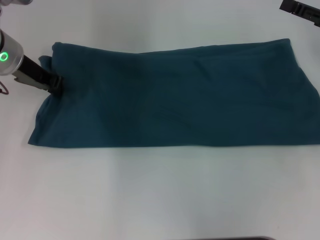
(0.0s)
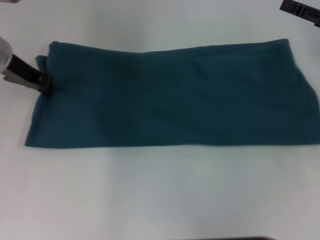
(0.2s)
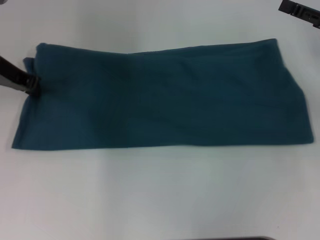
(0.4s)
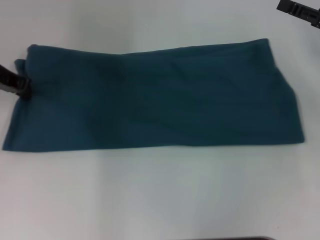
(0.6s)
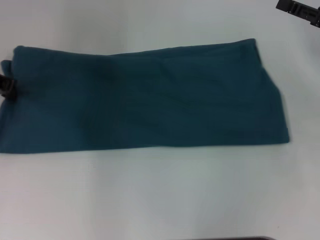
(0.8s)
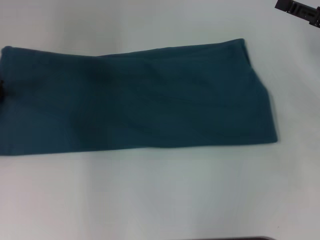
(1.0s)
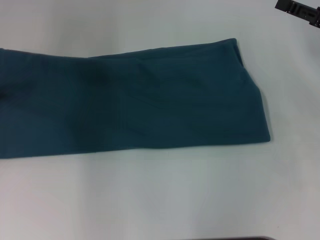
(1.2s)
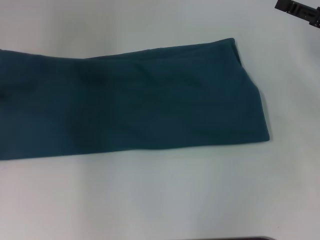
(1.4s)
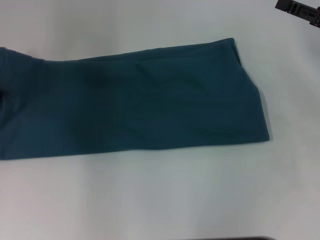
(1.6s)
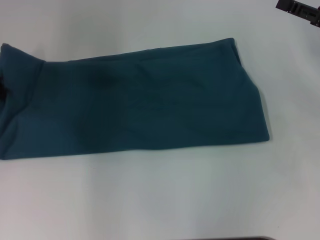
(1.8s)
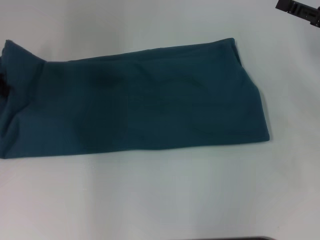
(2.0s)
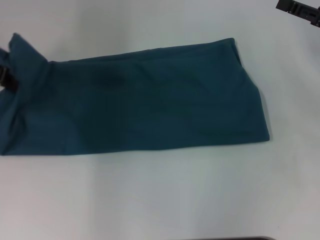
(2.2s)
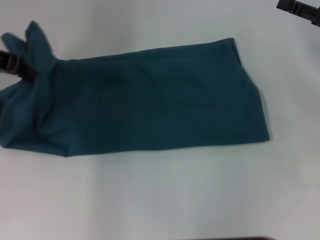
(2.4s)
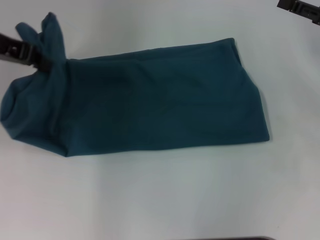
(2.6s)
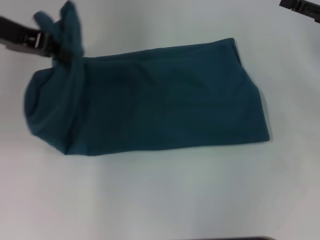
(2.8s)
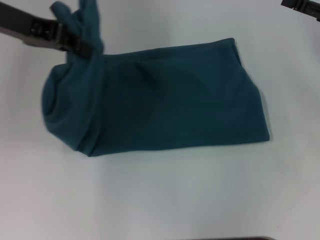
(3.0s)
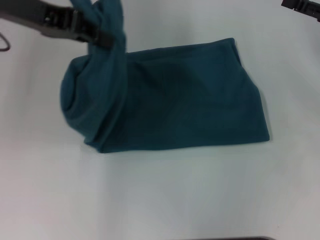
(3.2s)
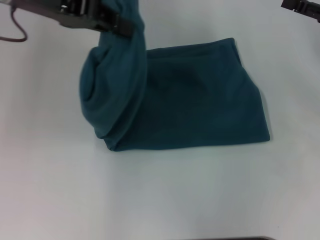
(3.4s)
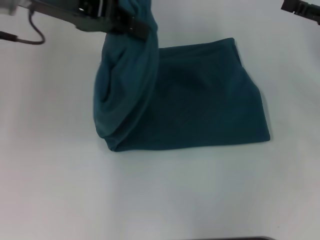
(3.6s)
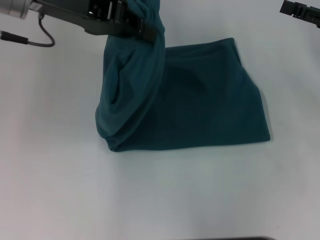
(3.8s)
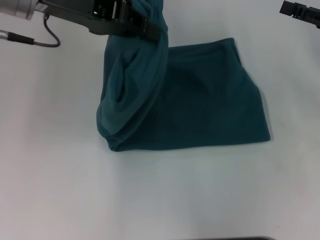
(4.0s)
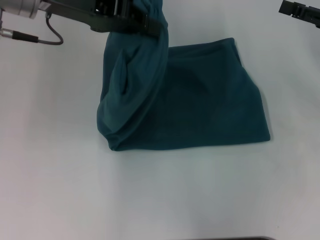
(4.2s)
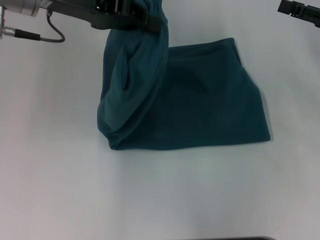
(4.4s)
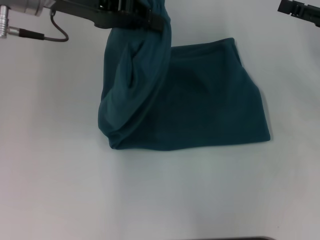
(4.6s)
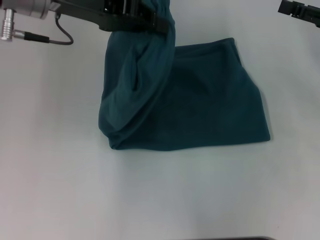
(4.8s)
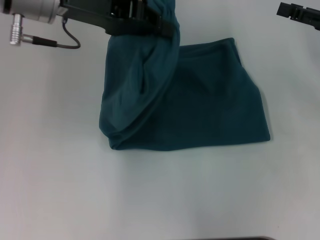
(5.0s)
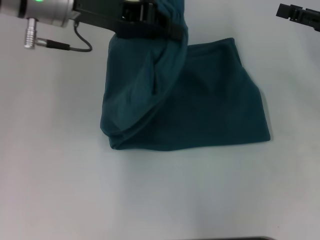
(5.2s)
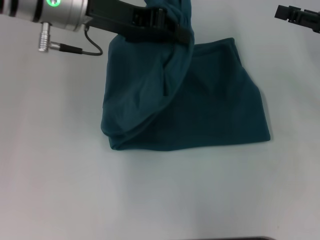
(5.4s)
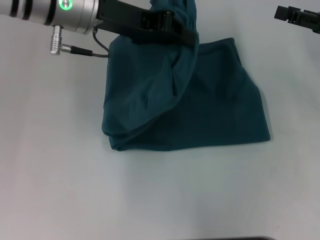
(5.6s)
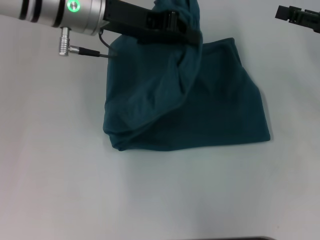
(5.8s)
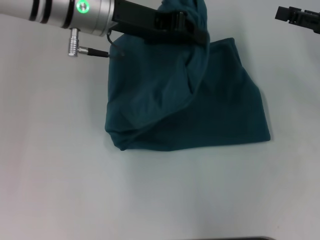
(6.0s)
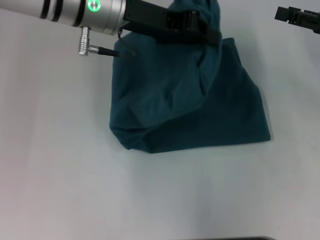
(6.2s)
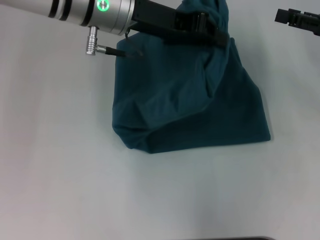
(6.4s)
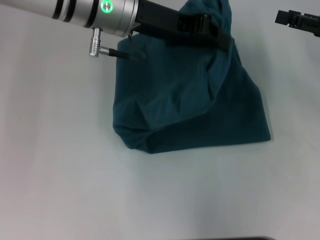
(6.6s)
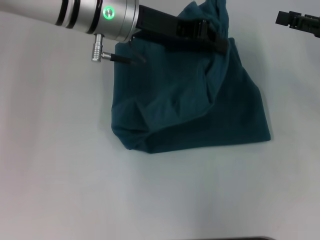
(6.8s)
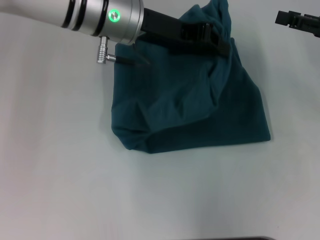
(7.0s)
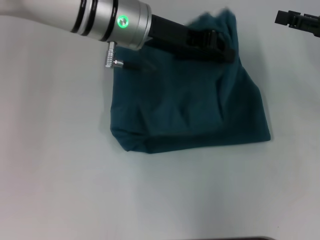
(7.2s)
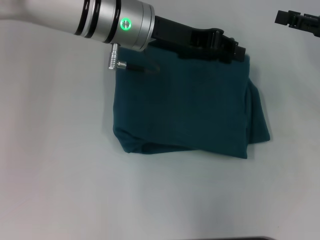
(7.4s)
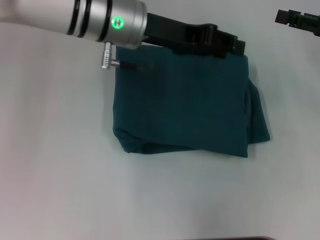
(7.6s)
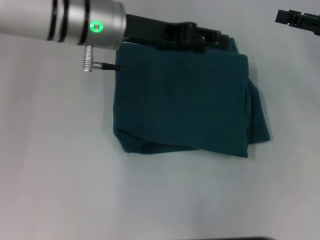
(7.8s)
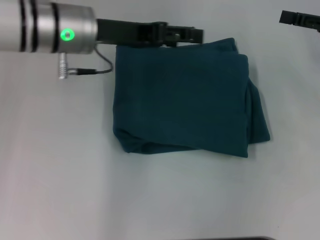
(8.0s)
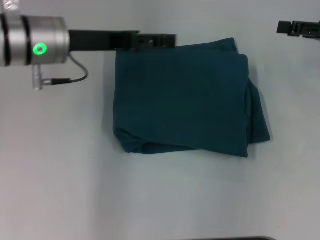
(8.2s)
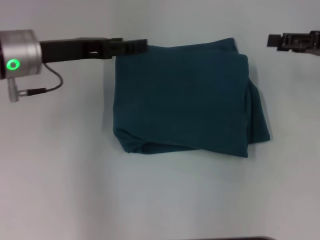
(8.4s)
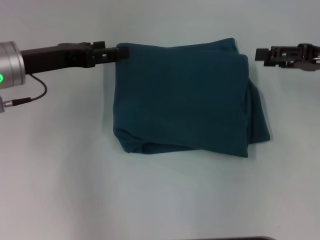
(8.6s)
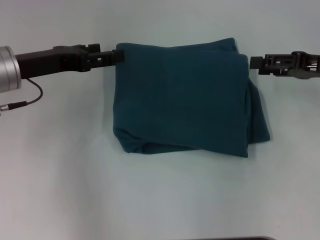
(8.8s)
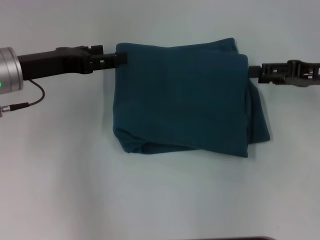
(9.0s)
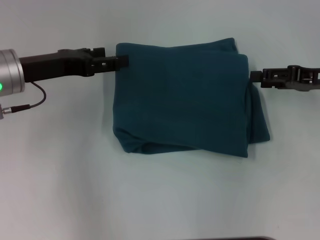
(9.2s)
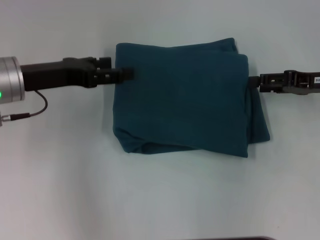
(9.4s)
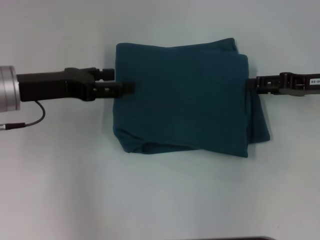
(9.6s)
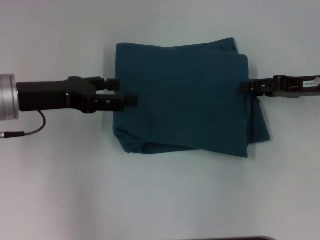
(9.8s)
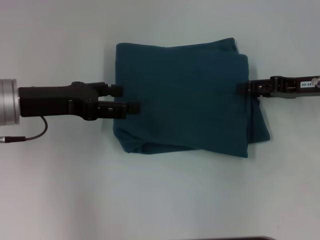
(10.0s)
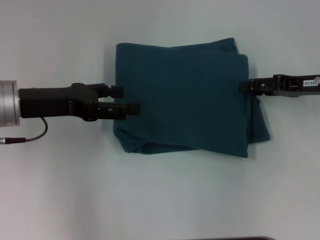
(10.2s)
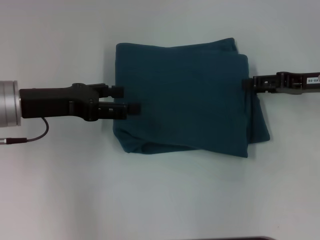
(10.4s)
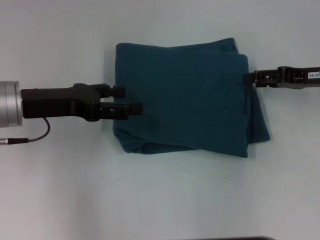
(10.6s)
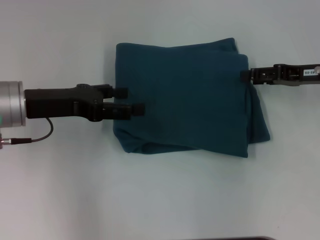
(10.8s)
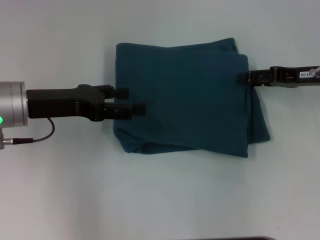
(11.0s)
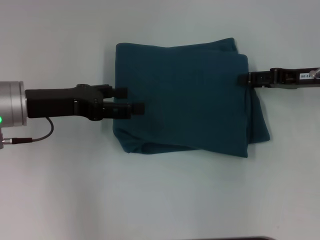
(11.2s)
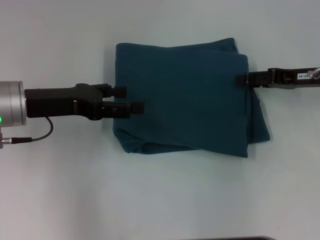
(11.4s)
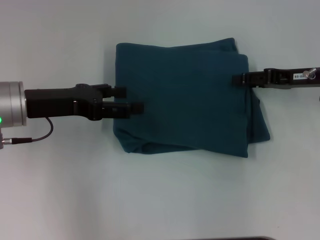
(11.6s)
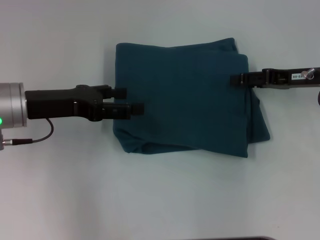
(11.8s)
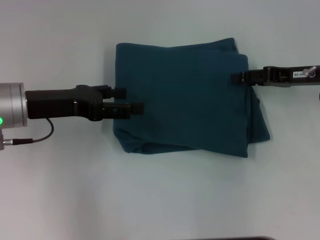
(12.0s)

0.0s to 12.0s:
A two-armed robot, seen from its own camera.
Step, 0.0s to 8.2s: Fold the clothes to the left.
0.0s to 1.6s: The left gripper is displaced to the left by approximately 10 cm.
1.6s to 3.0s: The left gripper heads upward and to the right, covering roughly 10 cm.
3.0s to 4.4s: The left gripper heads to the right, covering roughly 5 cm.
4.4s to 6.0s: The left gripper moves to the right, approximately 5 cm.
6.0s to 7.6s: The grippers make only small movements.
7.6s to 9.0s: The left gripper shifts some 15 cm to the left, and opens up.
9.0s to 12.0s: The grippers make only small movements.

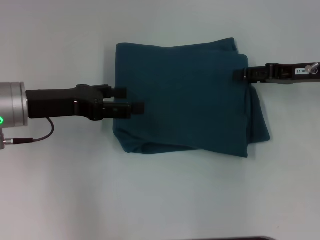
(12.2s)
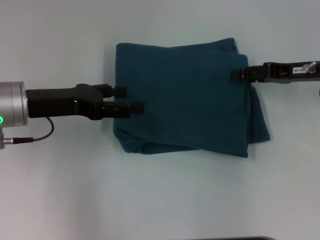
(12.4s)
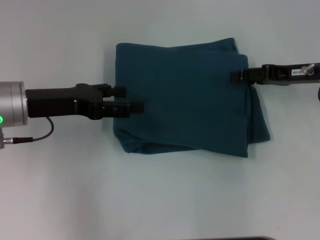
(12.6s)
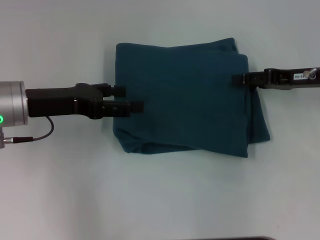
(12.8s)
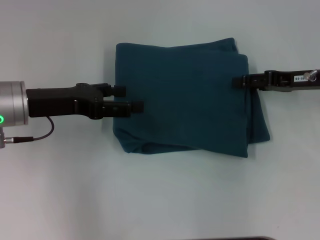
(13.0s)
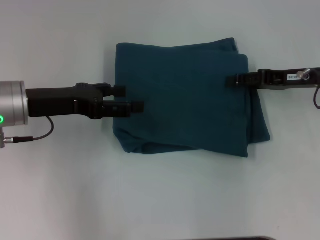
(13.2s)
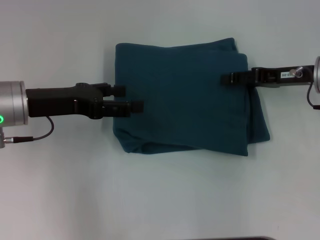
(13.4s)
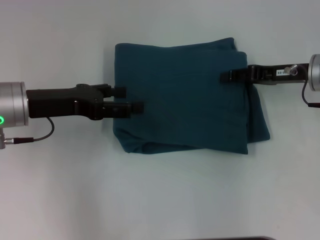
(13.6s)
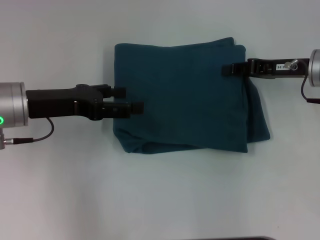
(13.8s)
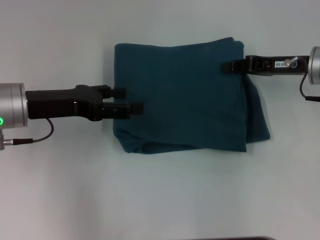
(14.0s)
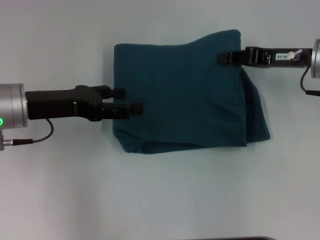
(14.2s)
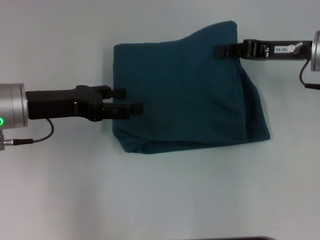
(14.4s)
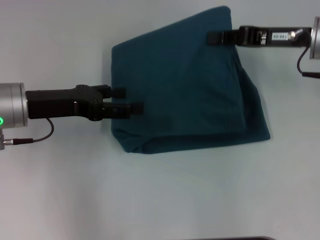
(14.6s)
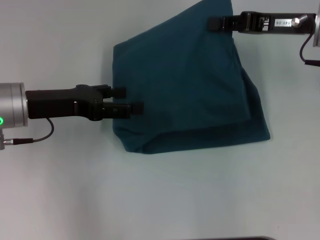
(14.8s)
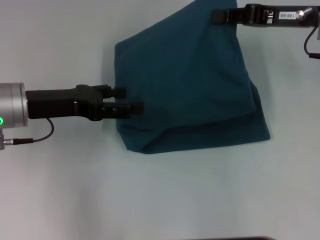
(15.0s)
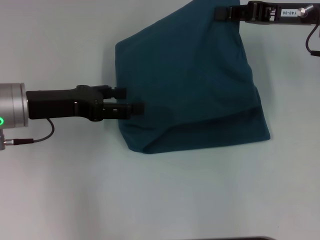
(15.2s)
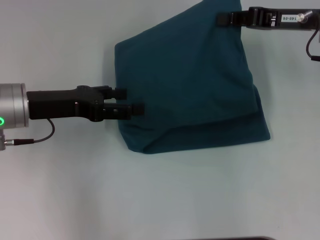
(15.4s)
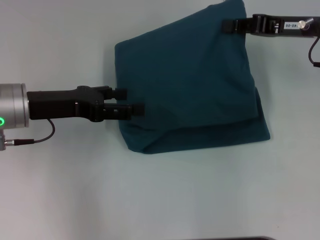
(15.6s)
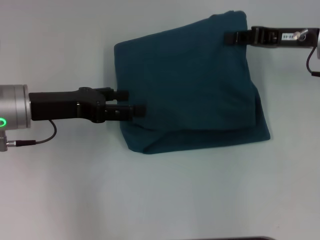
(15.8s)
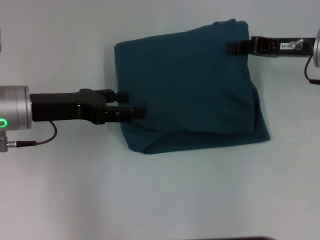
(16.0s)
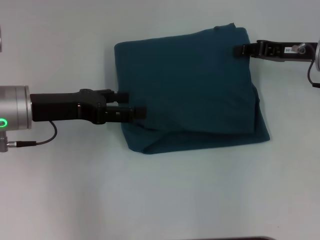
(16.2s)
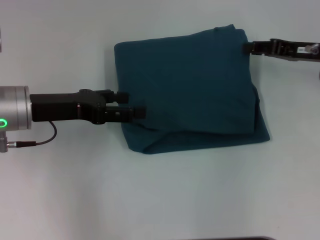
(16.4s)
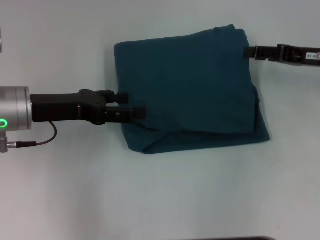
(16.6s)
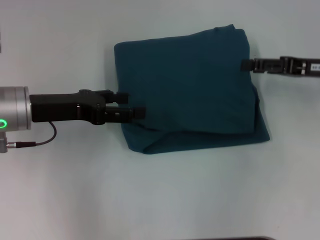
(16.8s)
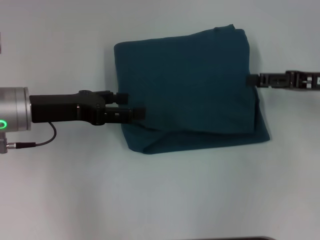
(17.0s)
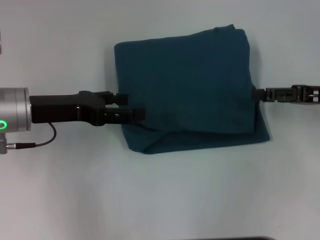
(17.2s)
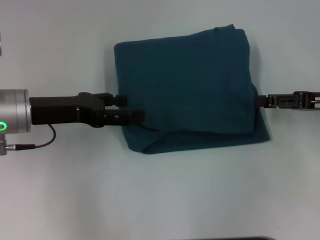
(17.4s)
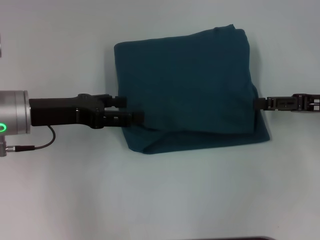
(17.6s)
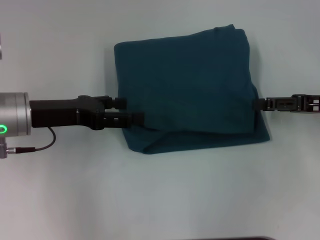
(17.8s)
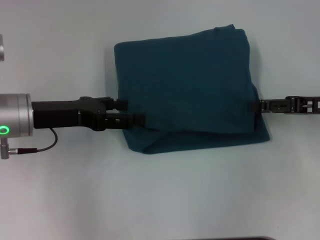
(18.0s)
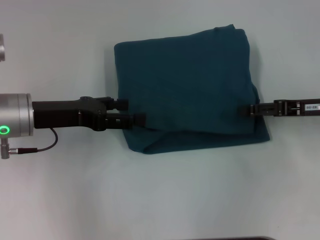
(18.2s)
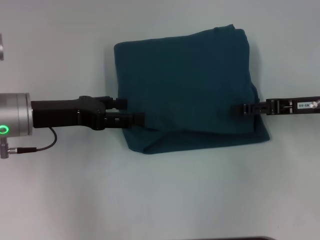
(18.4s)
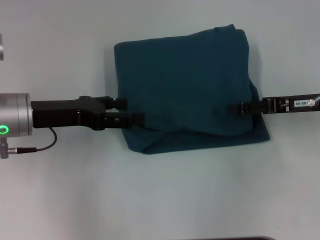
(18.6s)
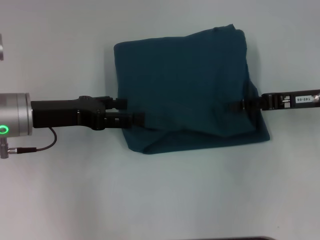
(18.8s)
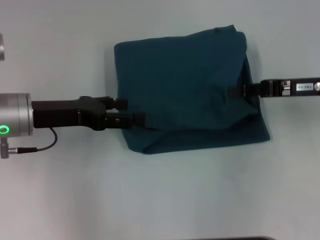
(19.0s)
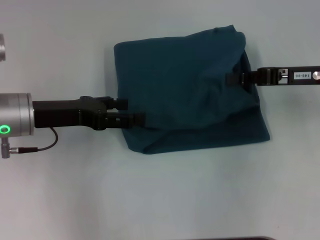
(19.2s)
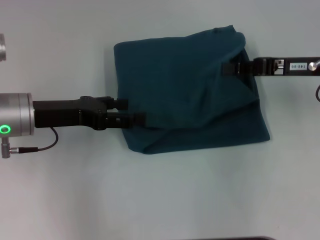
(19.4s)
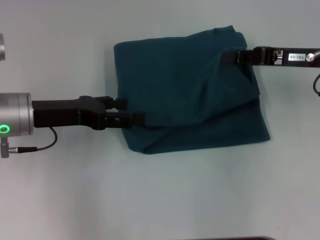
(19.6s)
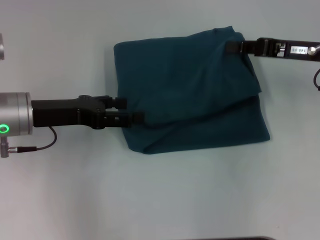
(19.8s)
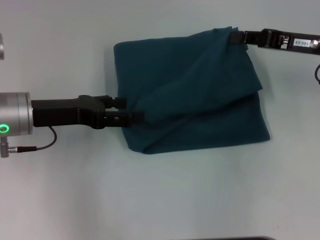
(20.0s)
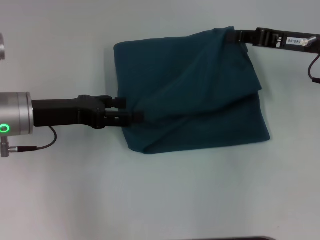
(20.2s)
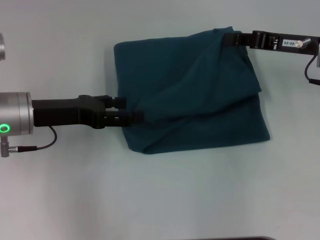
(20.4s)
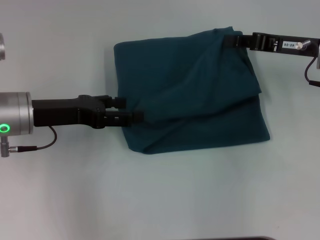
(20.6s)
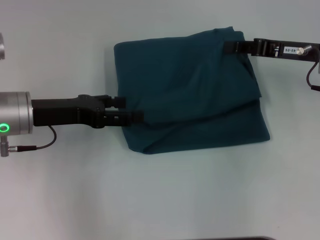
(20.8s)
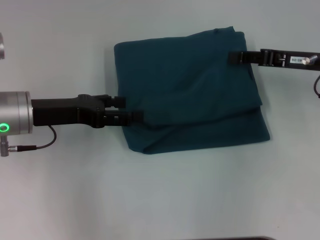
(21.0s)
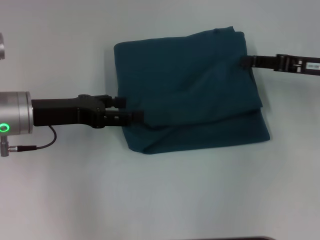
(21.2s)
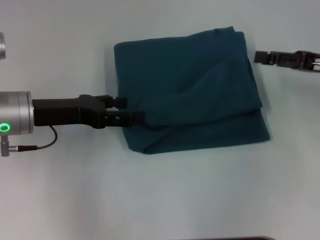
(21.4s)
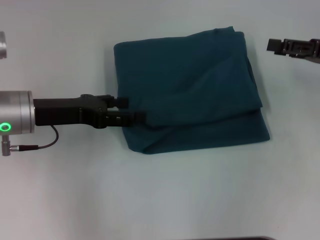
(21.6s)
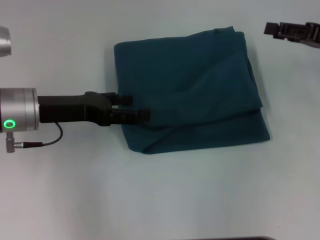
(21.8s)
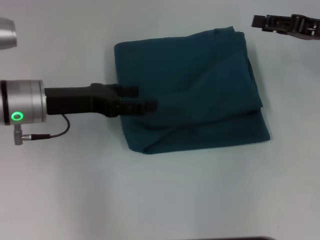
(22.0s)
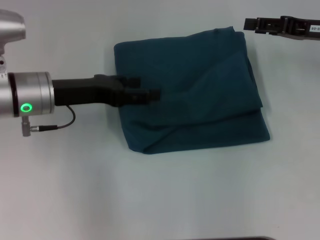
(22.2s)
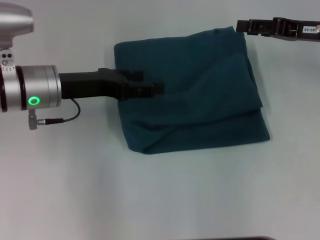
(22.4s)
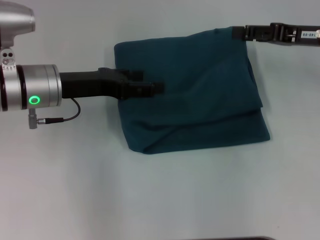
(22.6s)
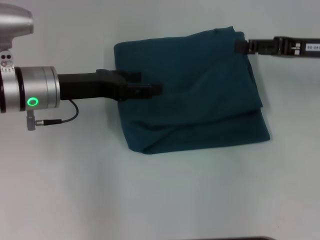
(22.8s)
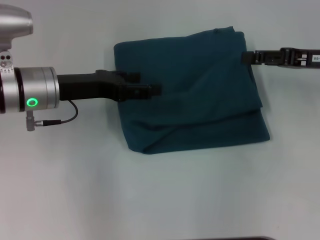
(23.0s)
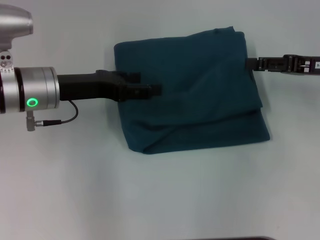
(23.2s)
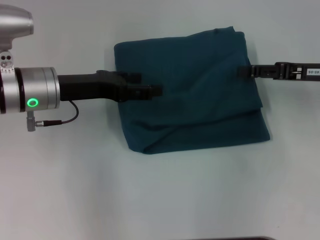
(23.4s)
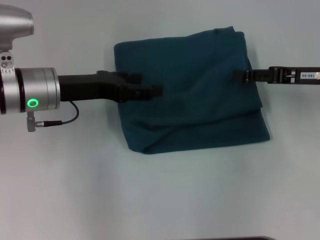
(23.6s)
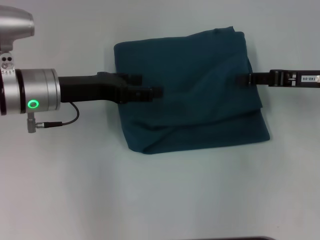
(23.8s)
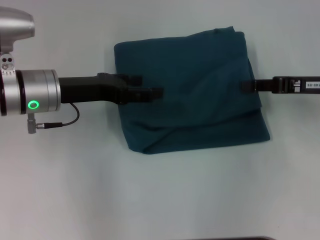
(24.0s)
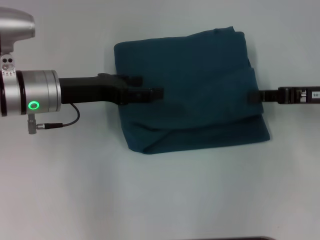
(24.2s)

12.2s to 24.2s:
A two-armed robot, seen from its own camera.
12.2s to 13.8s: There are only small adjustments of the grippers.
13.8s to 15.2s: The right gripper goes about 5 cm upward, and closes its fingers.
15.2s to 16.6s: The right gripper is displaced downward by roughly 5 cm.
16.6s to 18.2s: The right gripper changes place by some 5 cm, and opens up.
18.2s to 19.8s: The right gripper shifts by approximately 5 cm, and closes its fingers.
19.8s to 21.2s: The grippers move only a little.
21.2s to 22.6s: The right gripper opens.
22.6s to 24.2s: The right gripper heads backward, covering some 5 cm, and closes its fingers.
